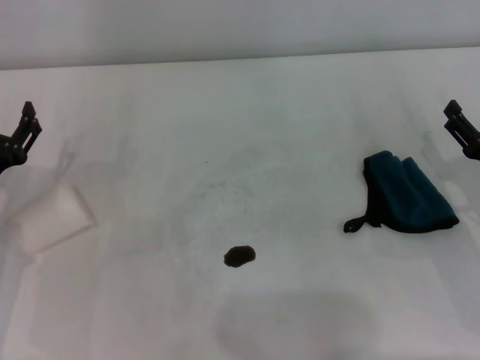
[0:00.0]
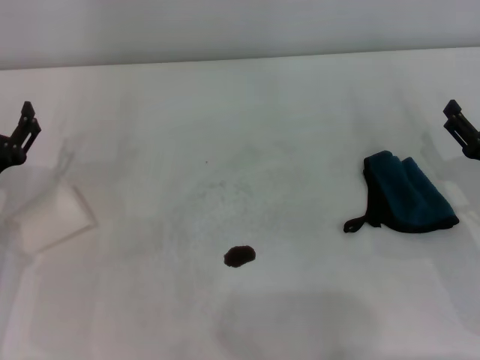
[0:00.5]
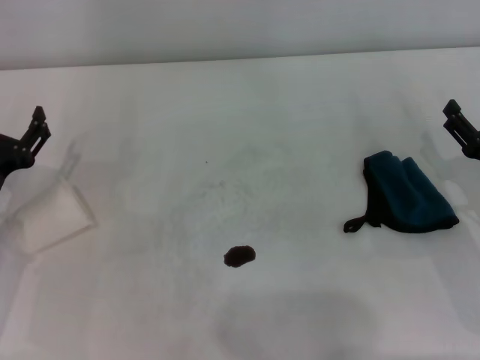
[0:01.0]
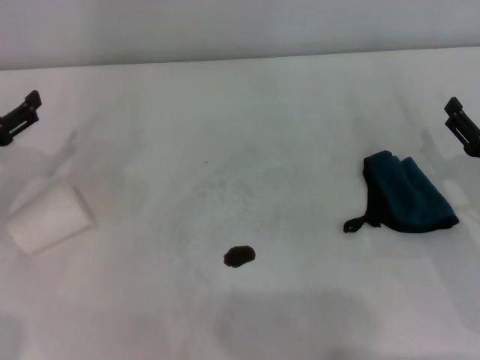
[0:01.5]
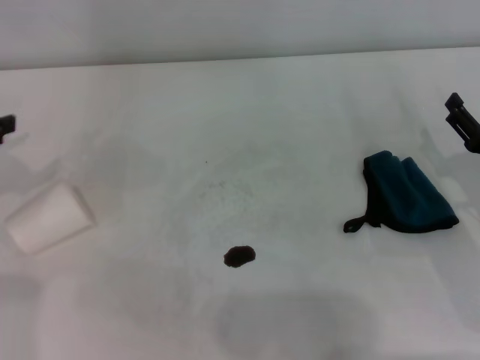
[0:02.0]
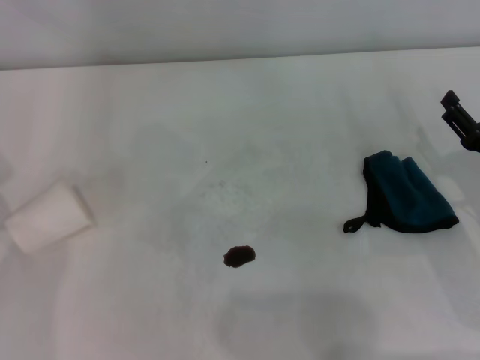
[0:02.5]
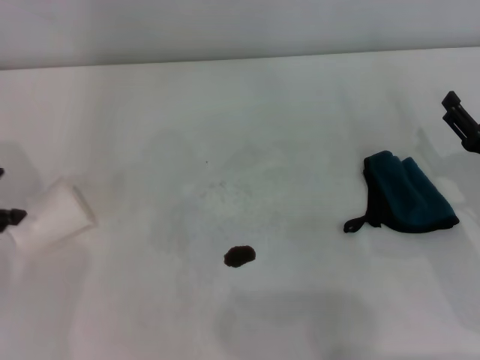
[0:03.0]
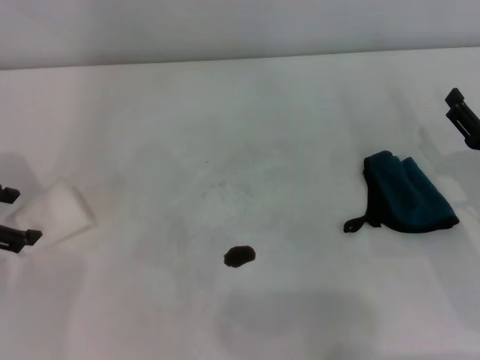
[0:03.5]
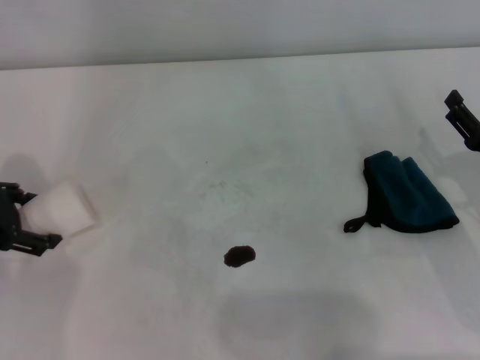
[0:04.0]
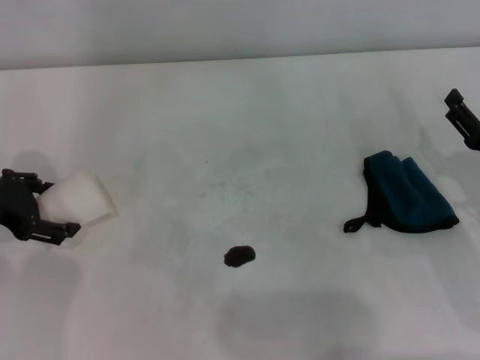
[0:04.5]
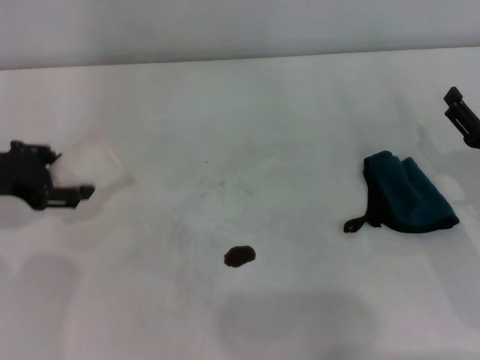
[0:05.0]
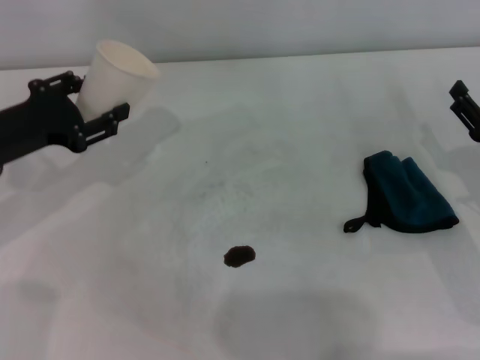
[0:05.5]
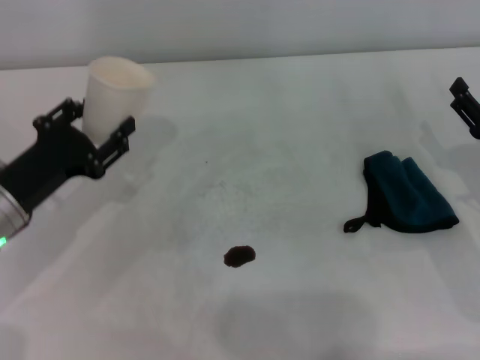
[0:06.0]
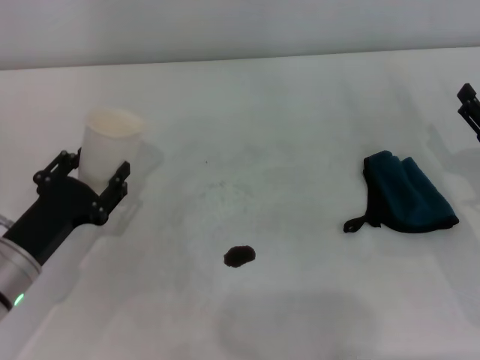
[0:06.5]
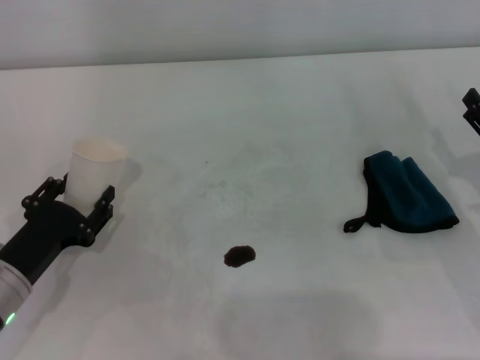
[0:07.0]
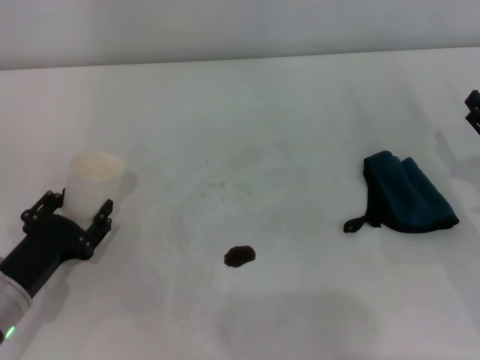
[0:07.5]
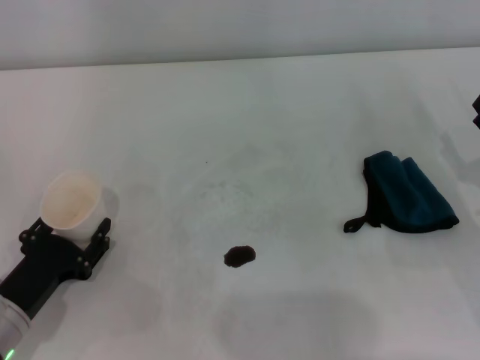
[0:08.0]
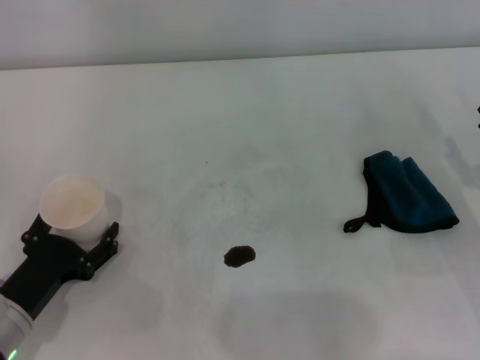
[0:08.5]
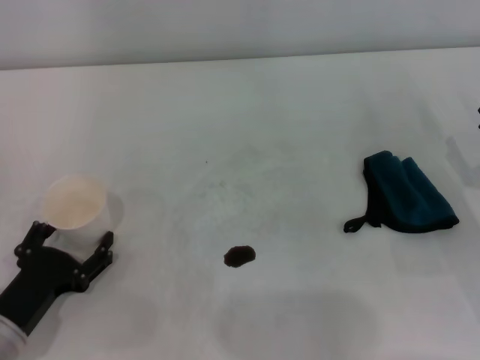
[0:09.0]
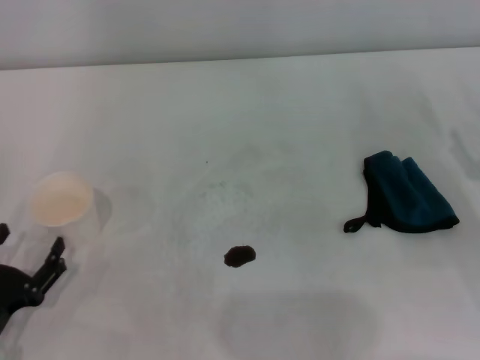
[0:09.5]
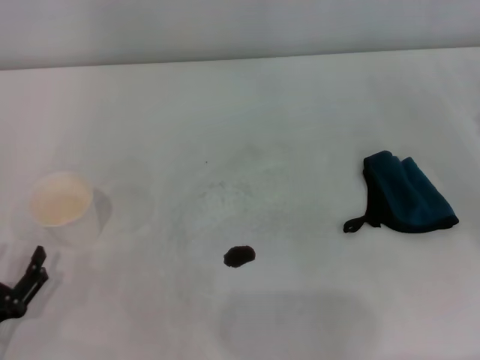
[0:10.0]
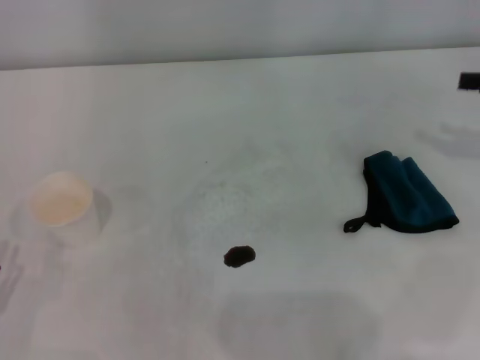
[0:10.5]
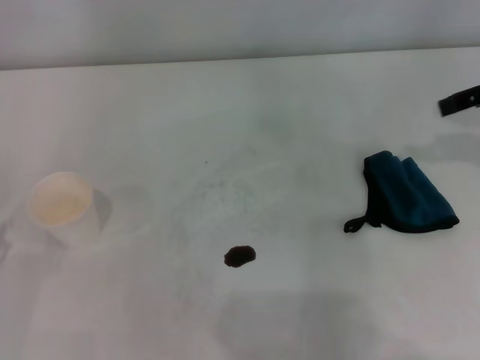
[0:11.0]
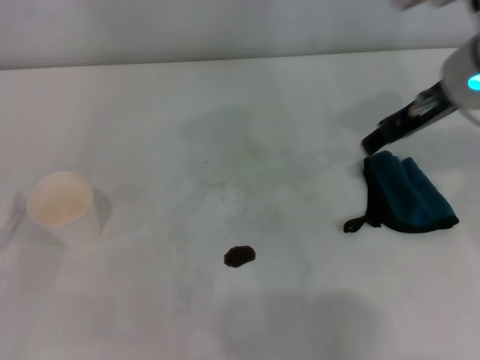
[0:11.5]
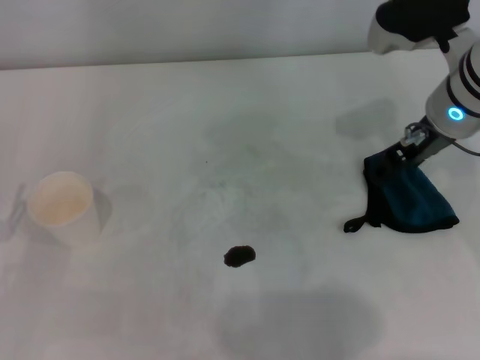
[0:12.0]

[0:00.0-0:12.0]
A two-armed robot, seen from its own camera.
Step, 0:00.0 to 0:03.5: Grasp the paper cup with the left gripper.
Step, 0:04.0 to 0:08.5: Stand the paper cup upright with the left gripper.
0:00.0 to 0:02.0: The left gripper goes about 15 cm upward and to the left.
0:02.0 to 0:04.0: The left gripper goes approximately 5 cm to the right.
0:04.0 to 0:06.0: The left gripper is displaced to the right and downward by some 10 cm, and closes its fingers.
0:06.0 to 0:08.0: The left gripper goes some 10 cm backward and downward.
0:08.0 to 0:10.0: The left gripper shifts about 5 cm backward, and opens up.
0:10.0 to 0:12.0: The right gripper travels to the left, forward and upward by roughly 25 cm; the left gripper heads forward, covering approximately 5 cm.

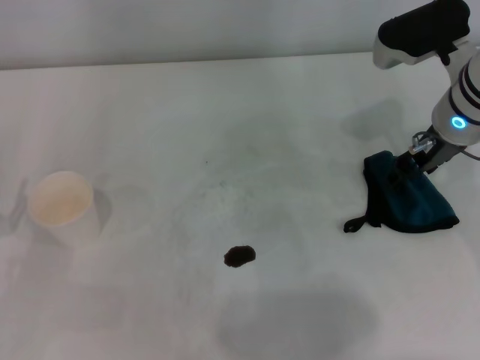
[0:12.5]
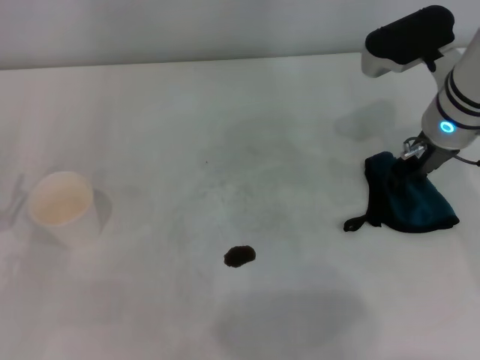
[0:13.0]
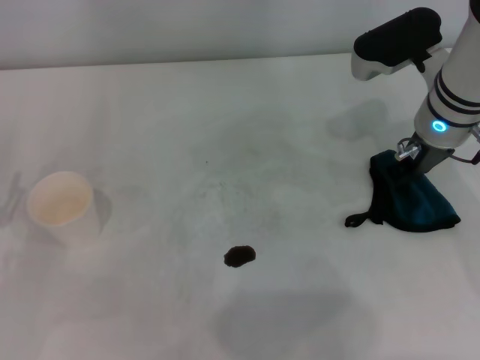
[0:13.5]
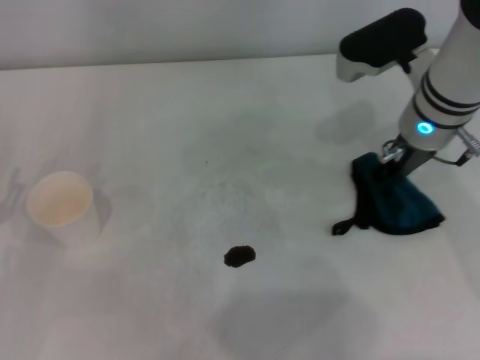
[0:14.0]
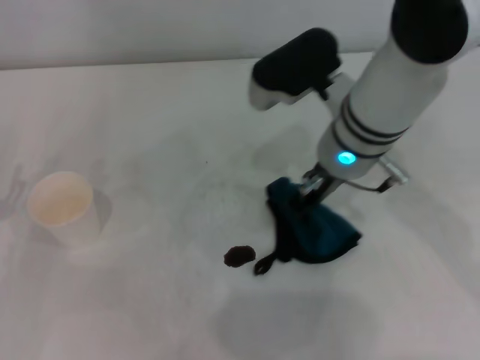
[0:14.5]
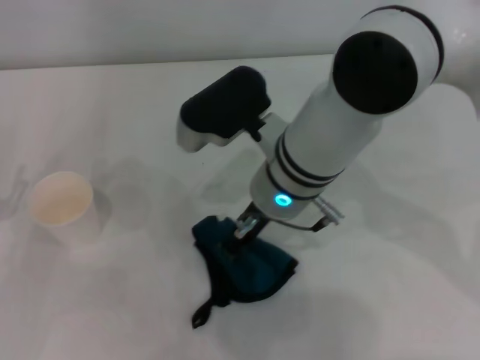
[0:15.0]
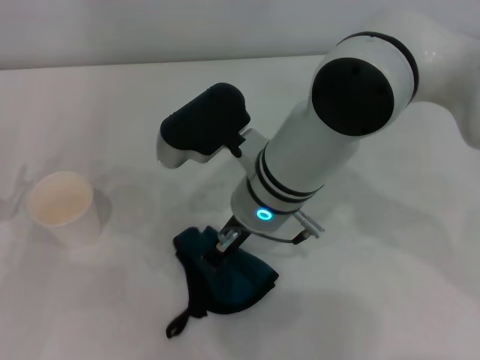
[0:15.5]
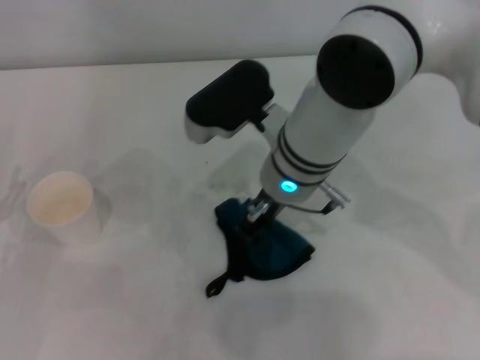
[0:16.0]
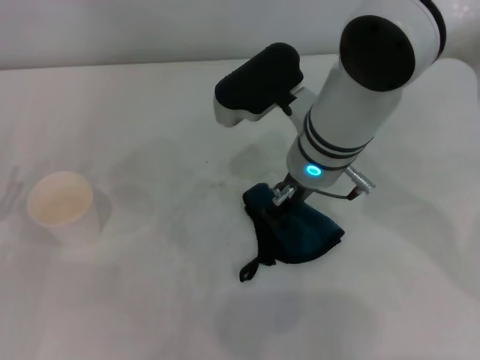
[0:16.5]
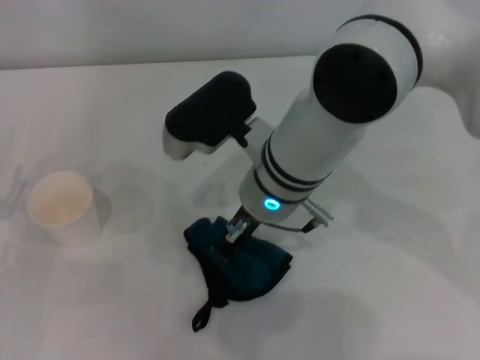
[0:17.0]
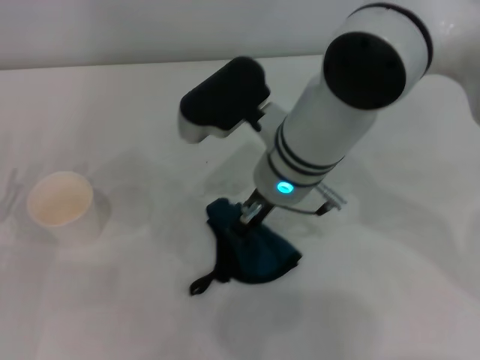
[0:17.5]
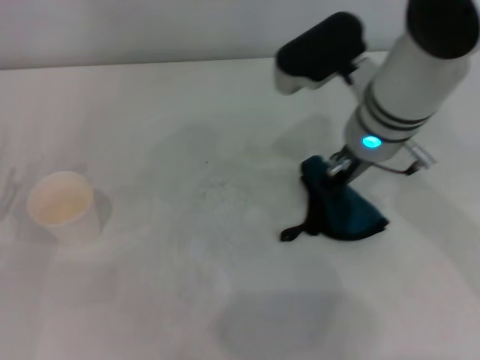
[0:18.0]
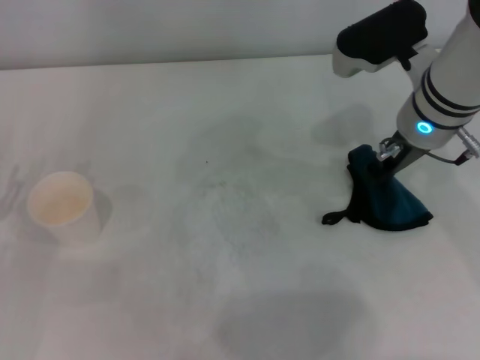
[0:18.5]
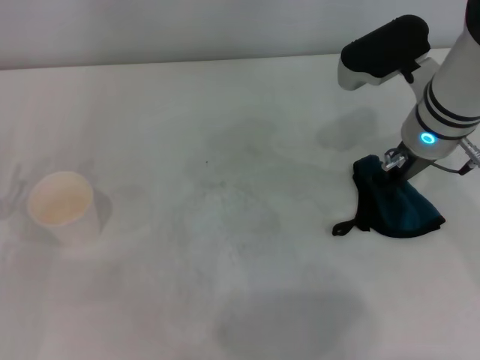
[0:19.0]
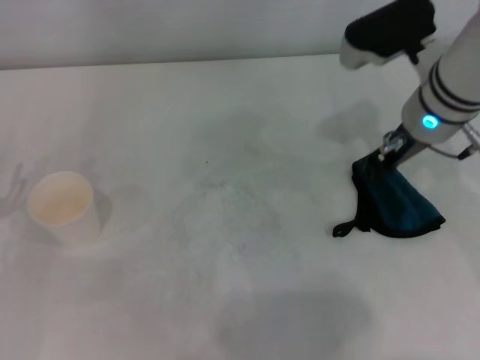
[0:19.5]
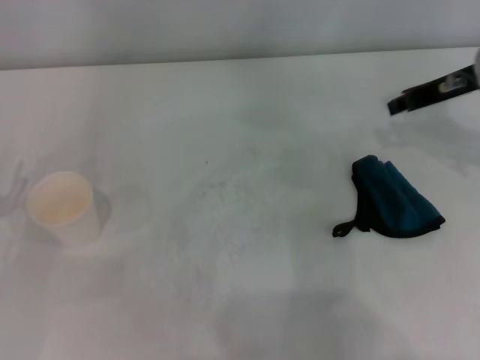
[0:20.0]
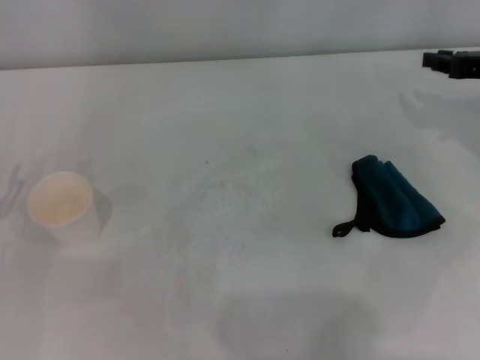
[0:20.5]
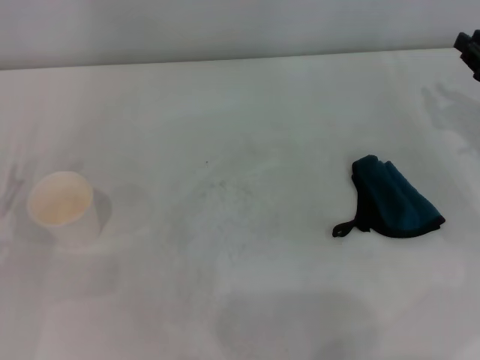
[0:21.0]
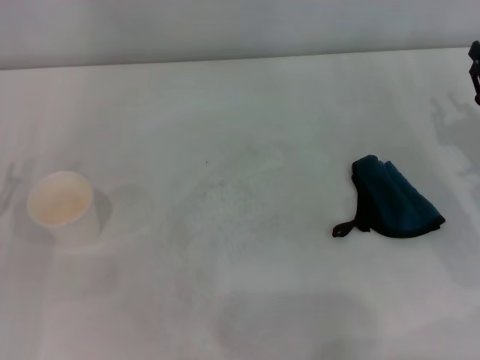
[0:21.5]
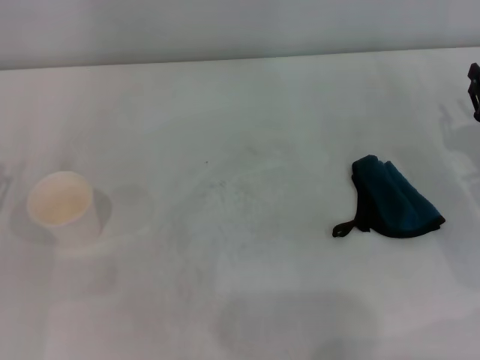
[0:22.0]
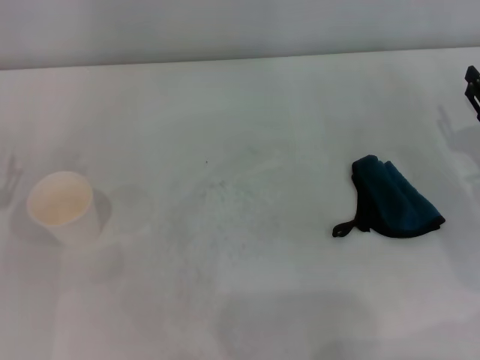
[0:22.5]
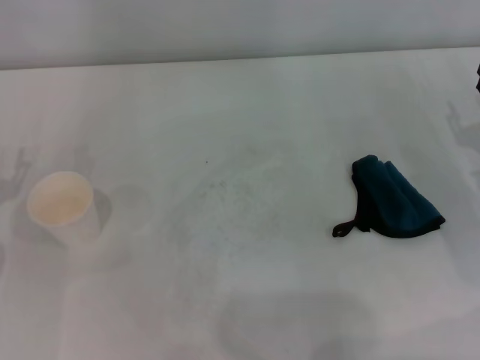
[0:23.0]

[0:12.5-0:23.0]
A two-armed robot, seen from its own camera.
Step, 0:14.0 to 0:18.0: Wipe the stains off the table with the right gripper.
Step, 0:18.5 to 0:19.0: Place the rag on the table with the right gripper.
0:12.5 to 0:14.5: The right gripper moves to the left, about 10 cm, and closes.
0:16.5 to 0:19.0: The right gripper moves to the right, about 10 cm.
0:19.0 to 0:21.0: The right gripper moves to the right, roughly 15 cm.
